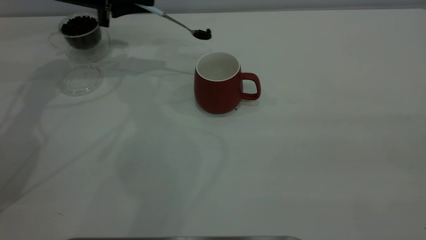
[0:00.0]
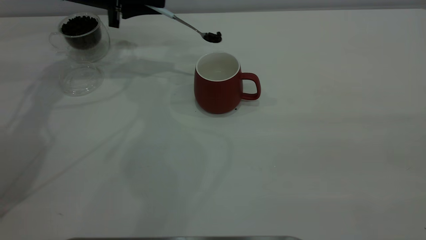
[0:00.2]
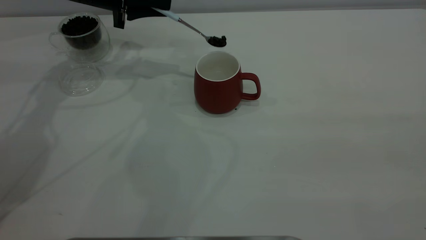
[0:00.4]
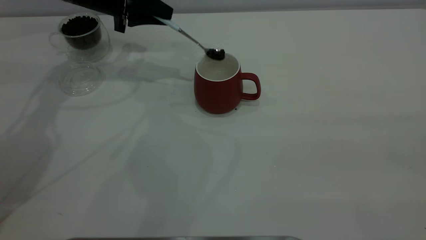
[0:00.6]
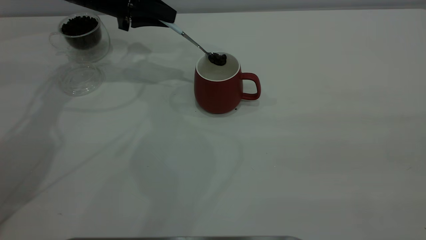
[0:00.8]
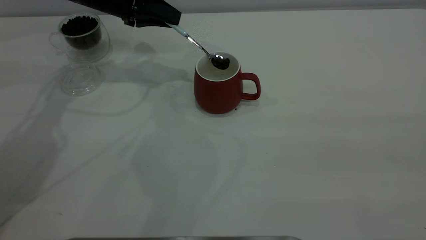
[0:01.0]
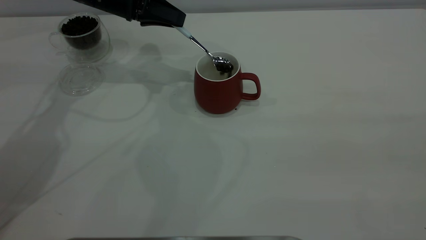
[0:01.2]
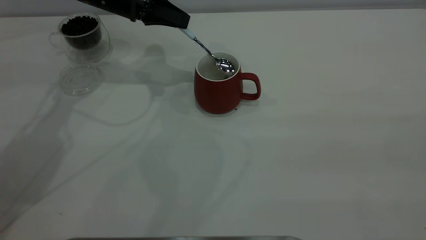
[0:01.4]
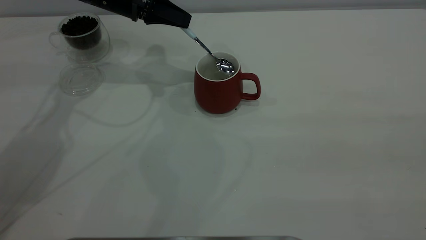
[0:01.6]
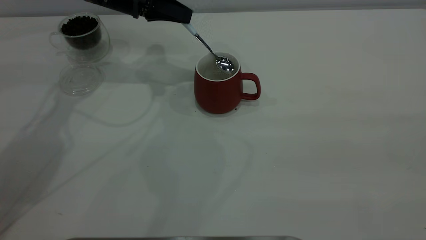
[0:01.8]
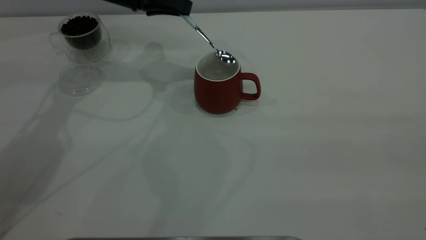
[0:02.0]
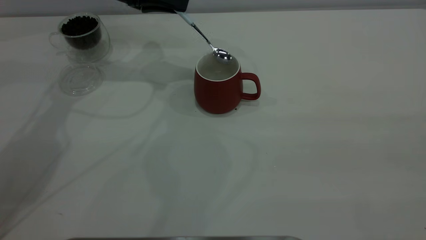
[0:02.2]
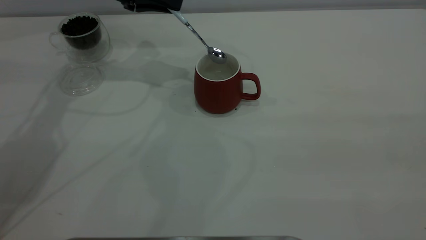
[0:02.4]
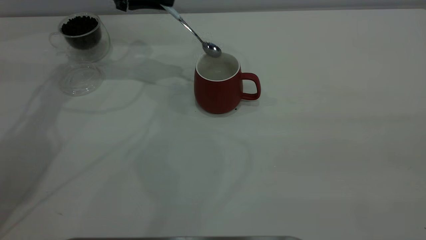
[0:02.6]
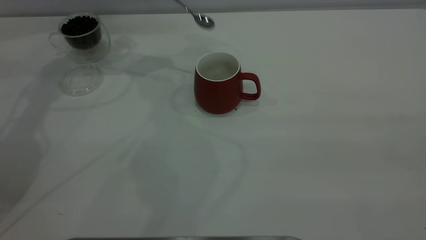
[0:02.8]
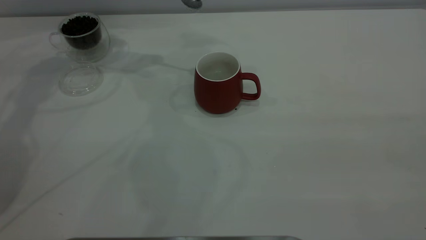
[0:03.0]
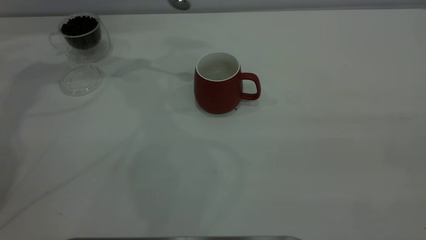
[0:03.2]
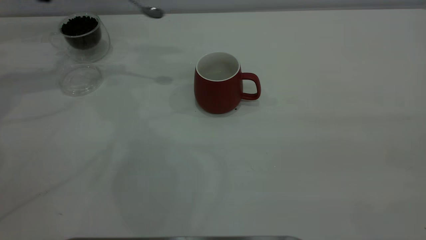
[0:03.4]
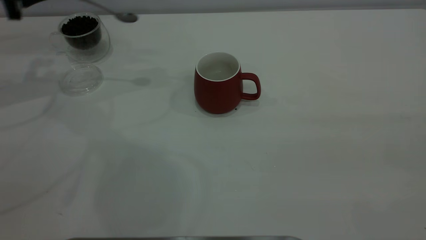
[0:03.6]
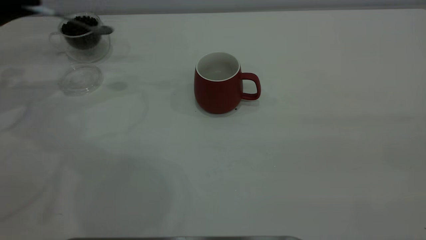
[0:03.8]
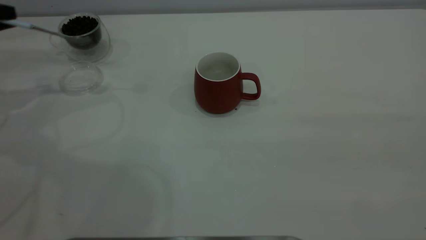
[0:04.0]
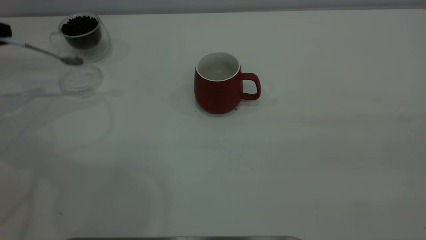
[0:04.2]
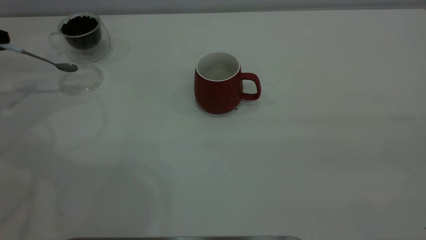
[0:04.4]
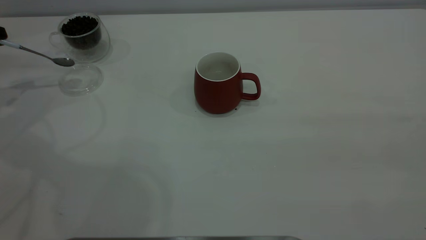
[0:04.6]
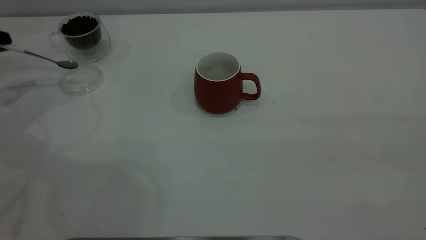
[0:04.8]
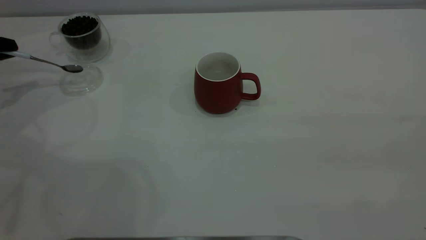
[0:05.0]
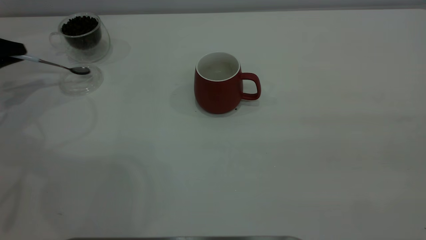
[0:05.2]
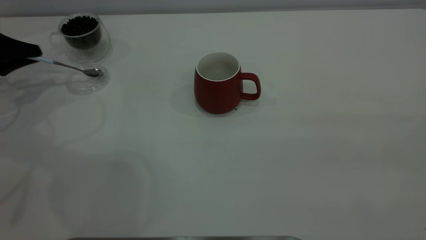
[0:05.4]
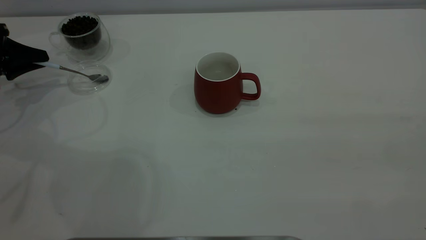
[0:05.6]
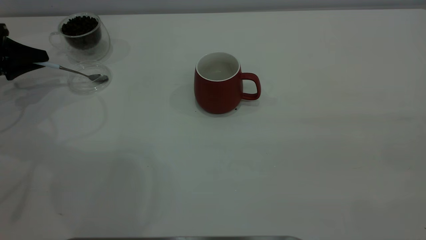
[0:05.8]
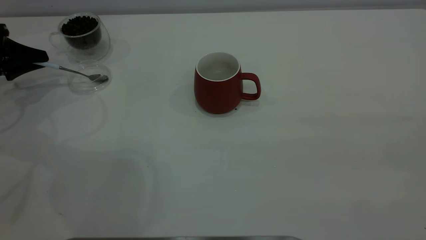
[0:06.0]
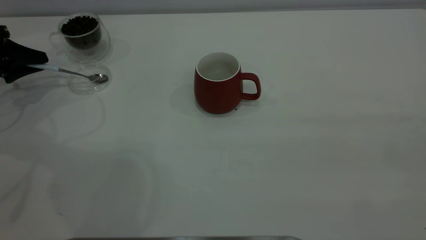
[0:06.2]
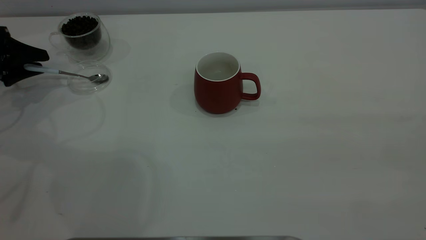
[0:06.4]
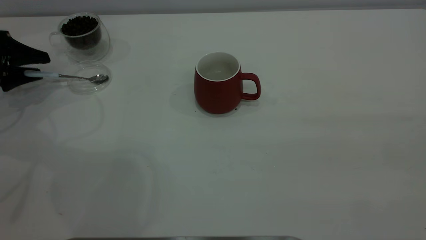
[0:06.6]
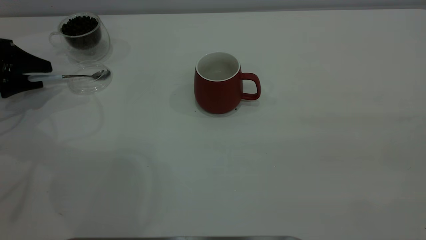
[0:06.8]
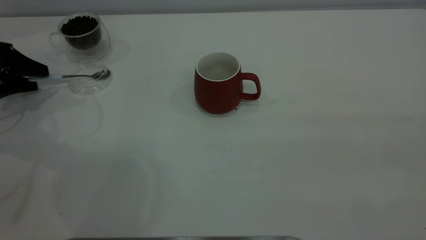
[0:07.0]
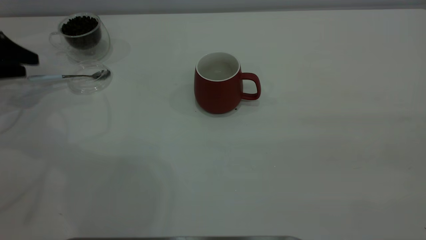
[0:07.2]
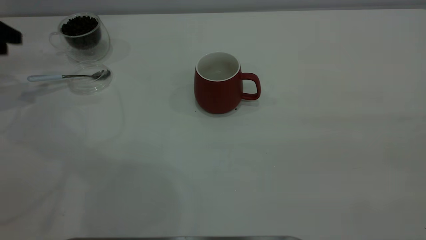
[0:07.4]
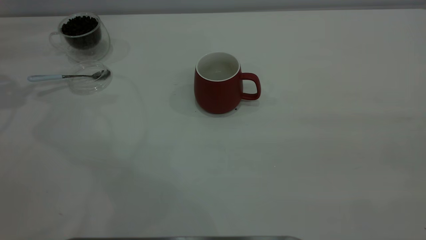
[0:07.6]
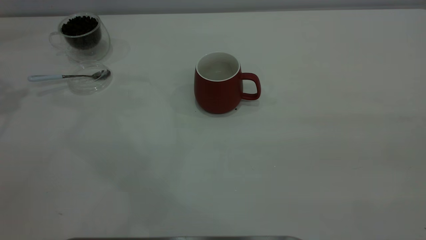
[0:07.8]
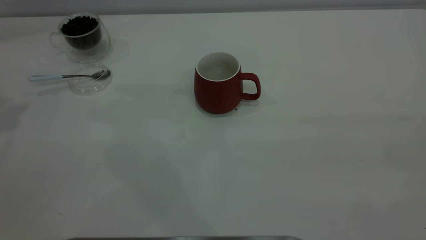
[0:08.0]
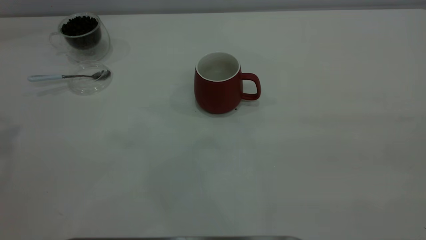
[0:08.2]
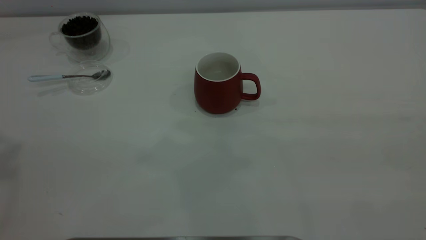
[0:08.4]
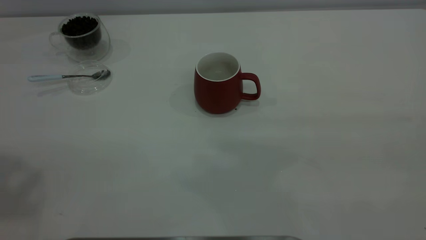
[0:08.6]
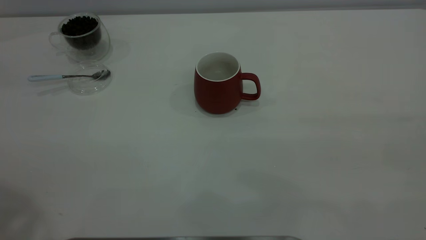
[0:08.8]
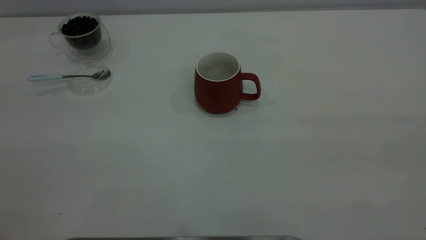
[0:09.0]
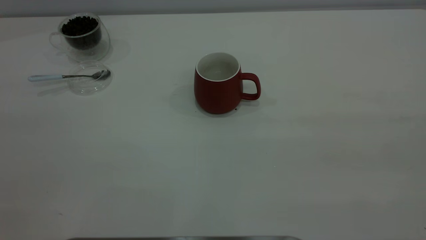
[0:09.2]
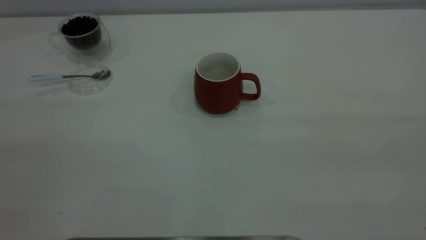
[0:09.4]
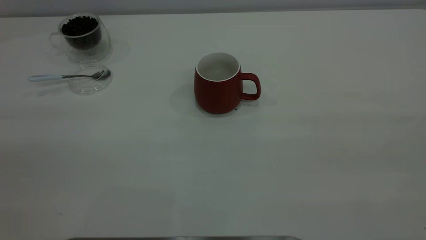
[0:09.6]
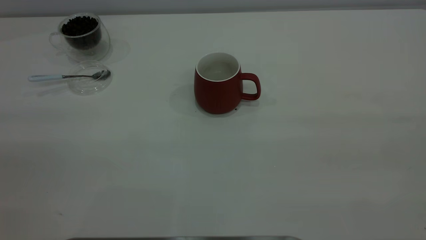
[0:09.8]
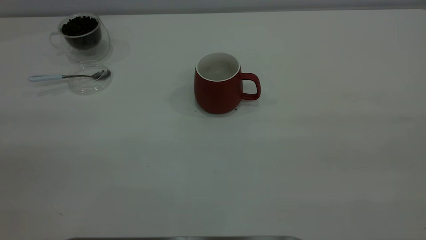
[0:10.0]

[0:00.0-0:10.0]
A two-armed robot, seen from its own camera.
Task of the whole recording: the right gripper place the red cup in the center of the table, the left gripper take the blue spoon from the cup lid and scoop out the coffee beans from the coffee cup and put them into the red cup, the left gripper put the spoon back into the cup lid.
Step, 0:00.0 to 0:02.6: Scoop a spoonful of beans into the cup.
Step, 0:02.8 to 0:07.2: Place the spoon back in its original place.
0:00.0 to 0:01.4: The left gripper travels to the right by approximately 5 cm.
0:01.4 to 0:02.8: The left gripper is displaced upward and to the left by about 10 cm.
0:02.8 to 0:04.2: The left gripper travels to the left and backward by roughly 25 cm.
0:04.2 to 0:05.8: The left gripper travels downward by about 5 cm.
0:05.8 to 0:07.2: The left gripper opens up.
0:07.2 to 0:08.6: The left gripper heads upward and backward, covering about 40 cm.

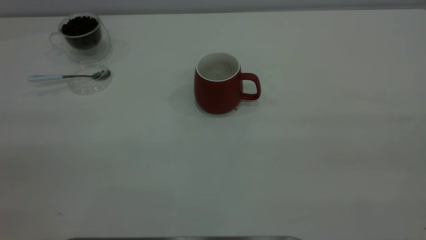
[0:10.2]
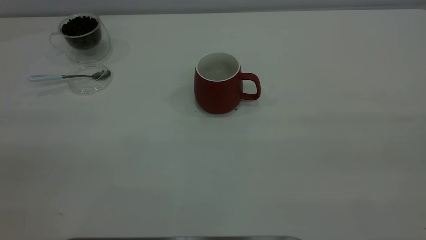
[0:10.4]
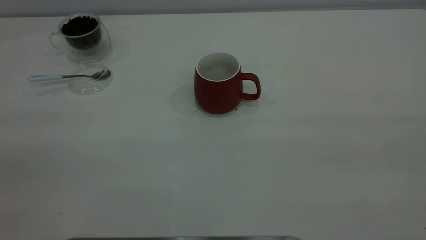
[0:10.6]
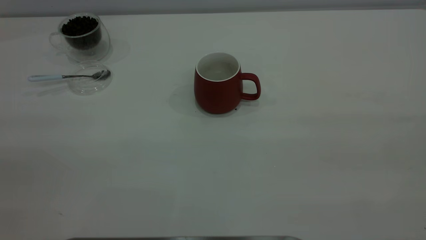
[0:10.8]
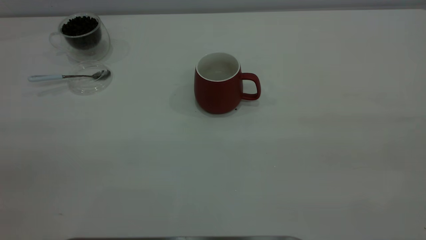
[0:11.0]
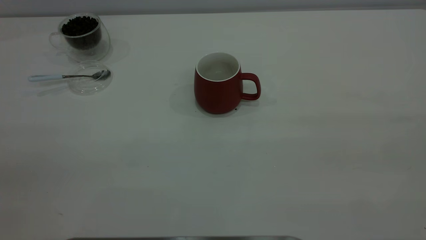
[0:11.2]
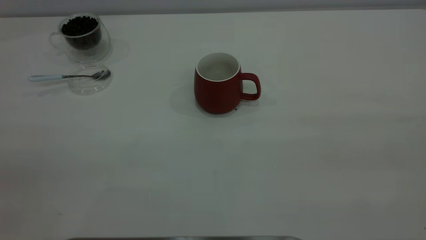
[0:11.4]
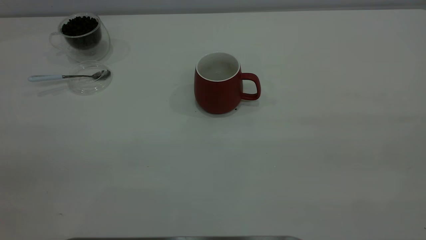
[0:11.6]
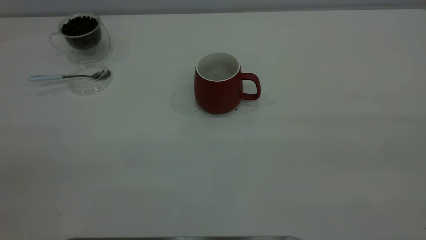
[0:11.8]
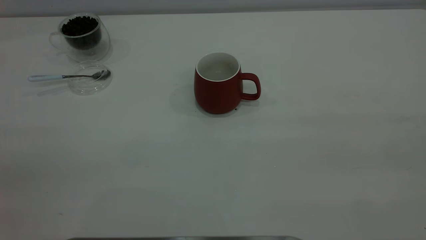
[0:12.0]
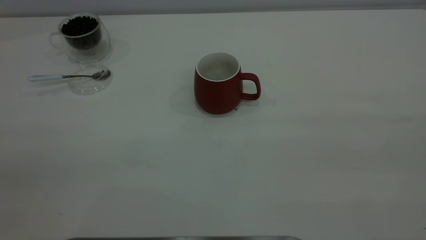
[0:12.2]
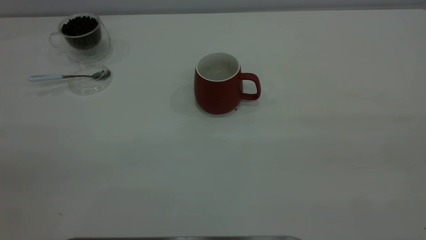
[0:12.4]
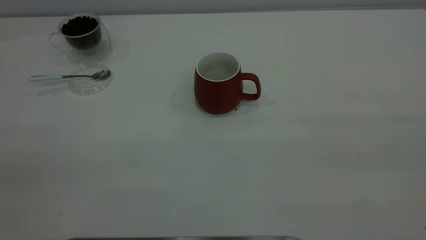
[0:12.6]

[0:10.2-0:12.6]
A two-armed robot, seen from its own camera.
Task of the whole recording: the right gripper place the red cup in the center of the table, the left gripper take the blue spoon from the cup lid and scoop out the coffee beans from the coffee cup and put them into the red cup, the left gripper put the spoon back into the cup lid.
0:11.4 to 0:12.6: Both grippers stay put.
